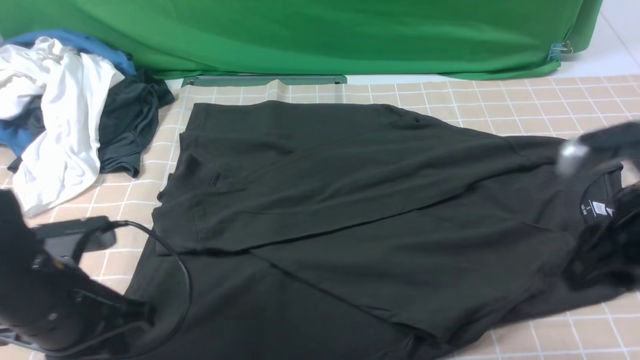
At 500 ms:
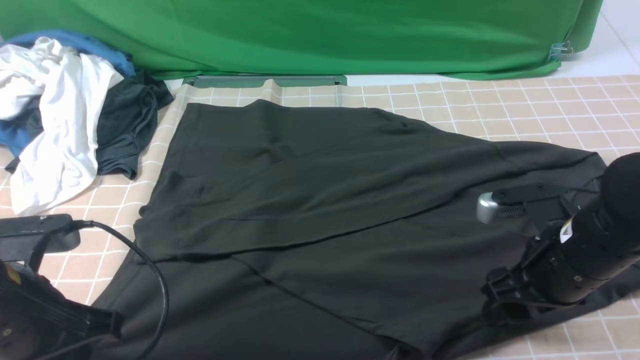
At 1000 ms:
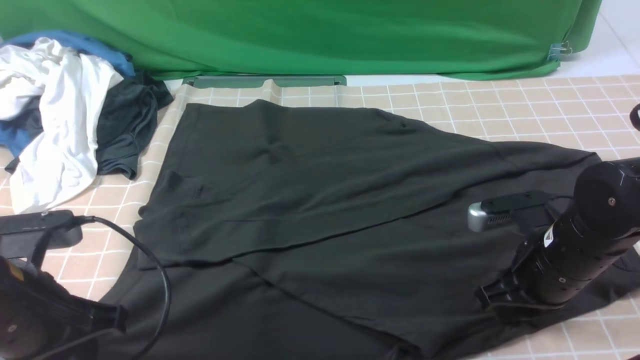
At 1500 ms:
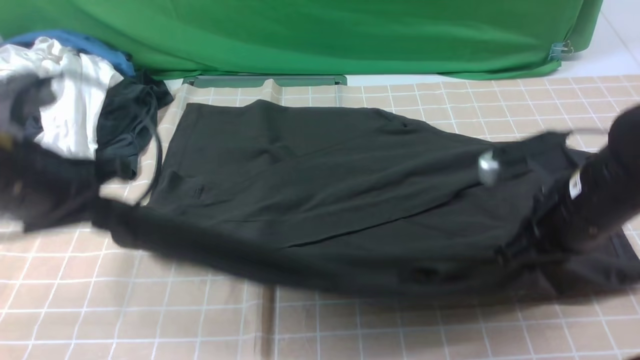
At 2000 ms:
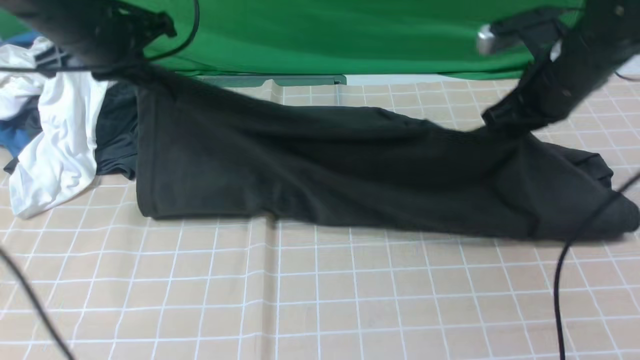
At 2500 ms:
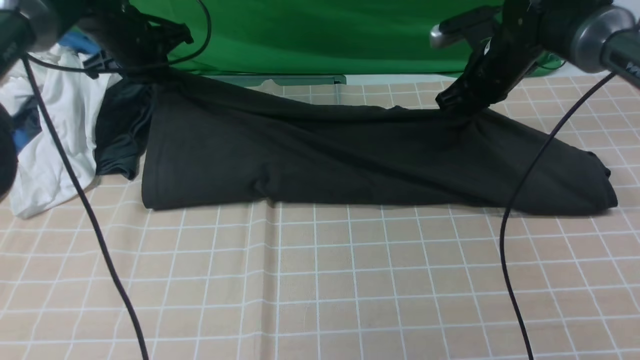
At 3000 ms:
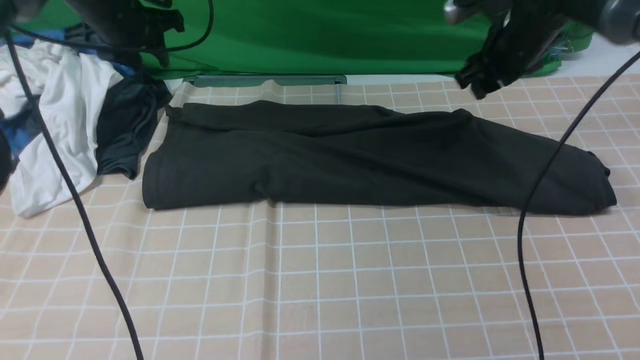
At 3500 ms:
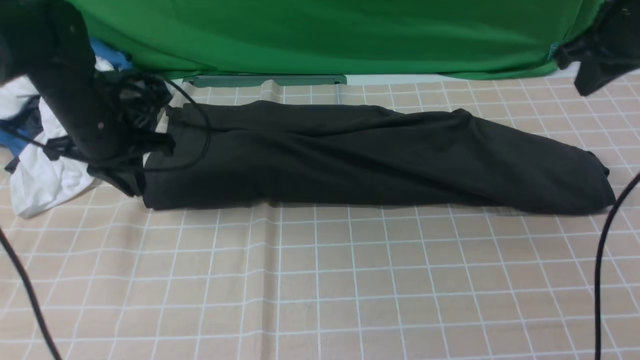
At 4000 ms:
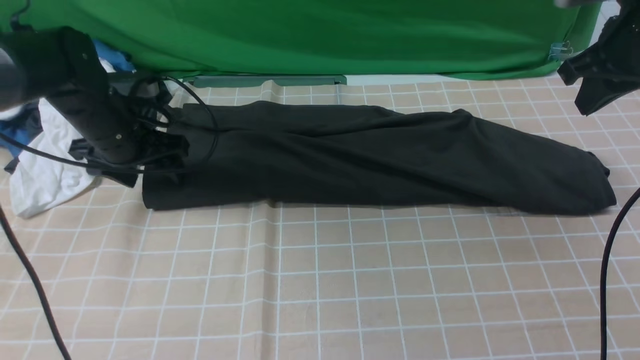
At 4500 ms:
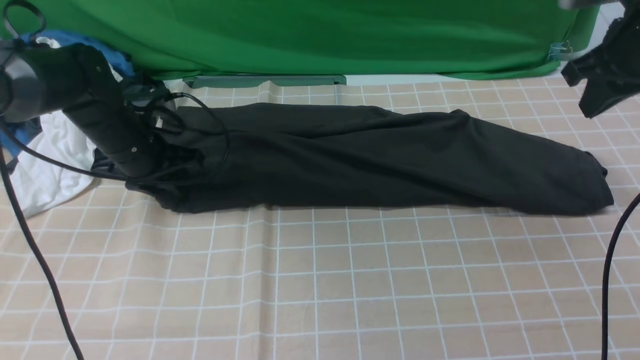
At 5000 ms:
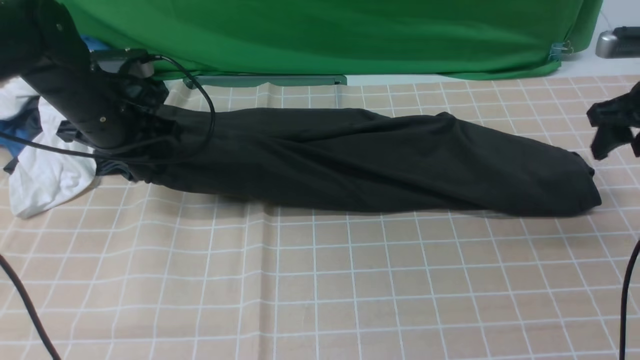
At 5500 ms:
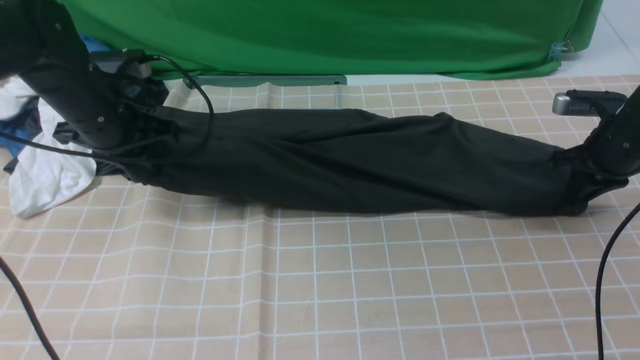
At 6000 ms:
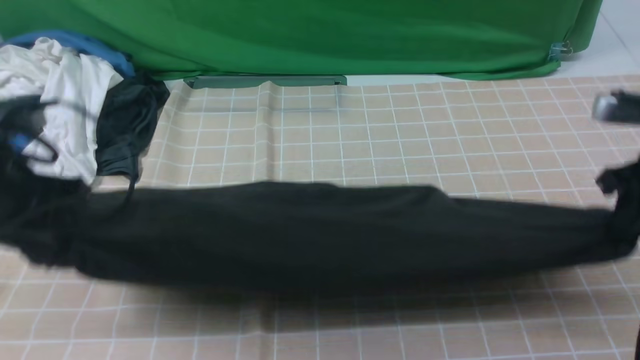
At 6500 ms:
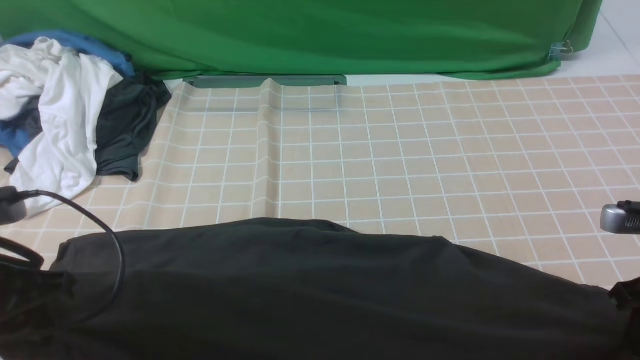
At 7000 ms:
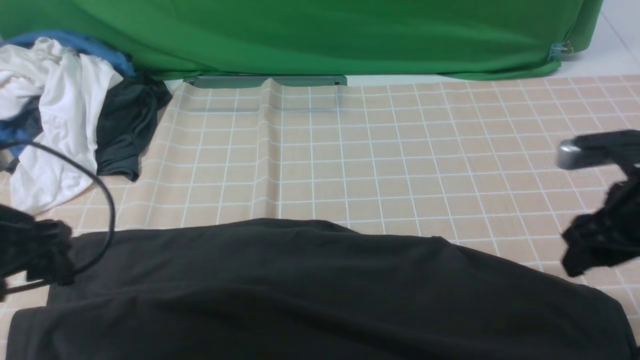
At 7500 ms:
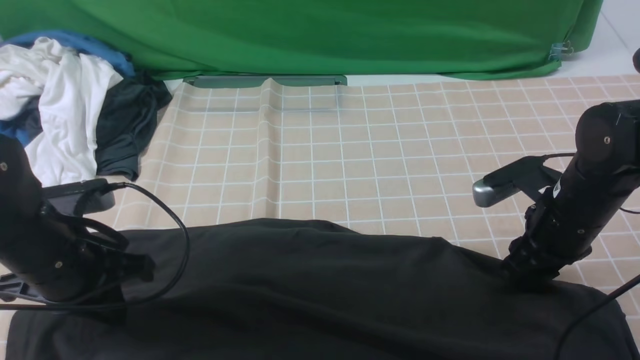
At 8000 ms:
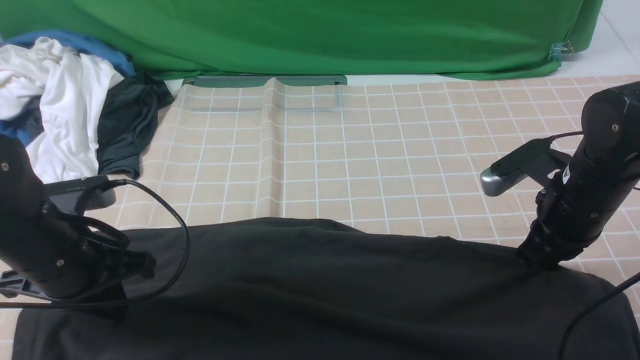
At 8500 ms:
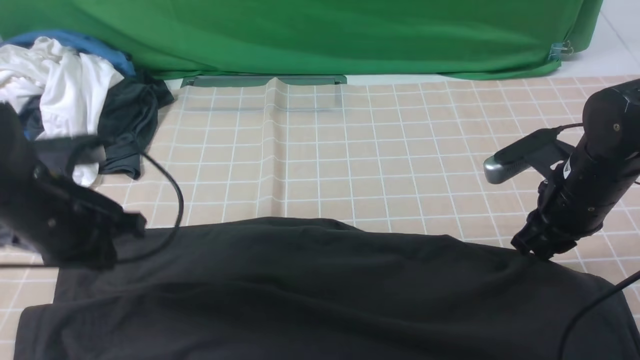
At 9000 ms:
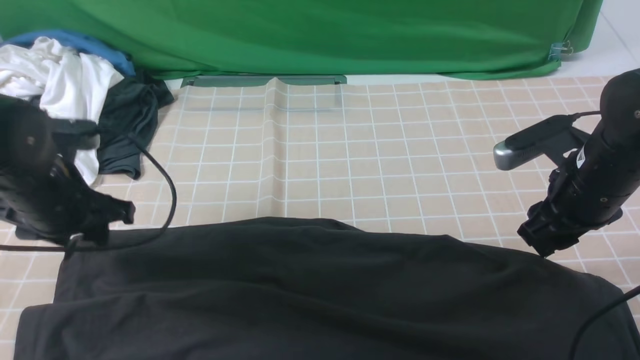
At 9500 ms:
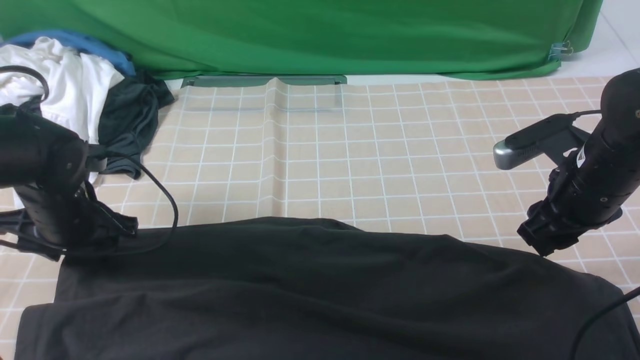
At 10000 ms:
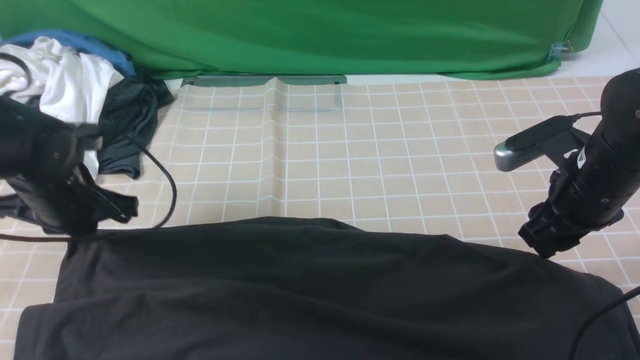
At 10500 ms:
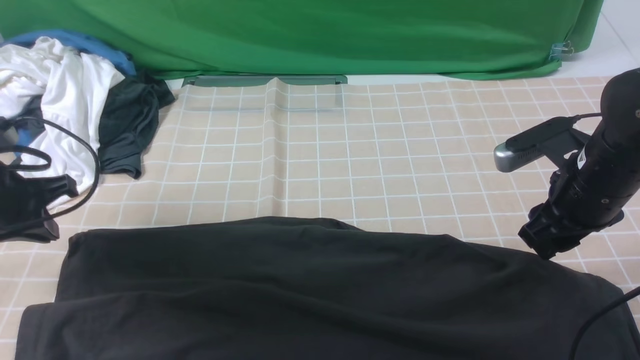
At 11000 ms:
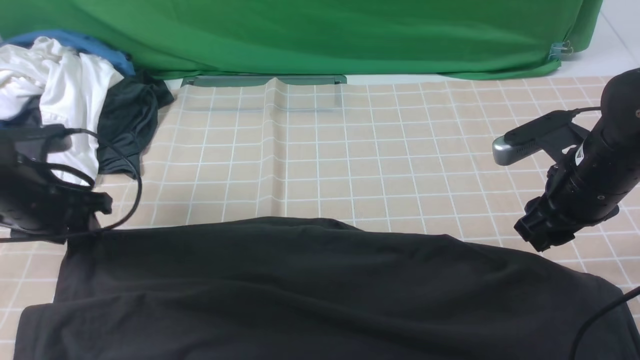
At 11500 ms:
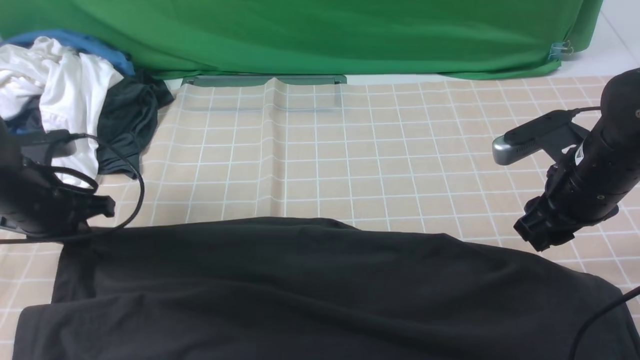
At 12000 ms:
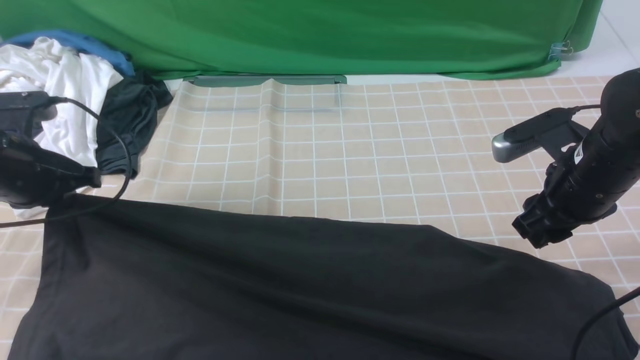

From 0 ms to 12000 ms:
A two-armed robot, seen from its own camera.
Step, from 0 ms to 1000 ms: use both arms simultaneously to clamp the lower edge of the clothing fabric.
Step, from 1500 ms to 3000 ms: use both arms to drag the lower edge of the fabric forward and fold it over the upper edge.
From 0 ms to 2000 ms: The right gripper moves forward, approximately 20 cm, and closes up; the left gripper heads forward and upward, covering some 25 cm.
From 2000 ms to 4000 ms: The left gripper is displaced downward by roughly 15 cm, and opens. The right gripper heads to the right and upward, covering about 10 cm, and opens and closes again.
From 4000 ms to 6000 ms: The right gripper is displaced backward and downward by some 15 cm, and opens, then closes once more, while the left gripper is displaced backward and upward by some 15 cm, and closes its fingers.
From 6000 ms to 8000 ms: The left gripper moves downward, about 5 cm, and opens, then closes again; the right gripper goes roughly 10 cm to the left and downward, and opens, then closes again.
From 8000 ms to 10000 ms: The left gripper is displaced forward by some 10 cm, and opens, then closes again; the right gripper opens its fingers.
From 10000 ms to 12000 ms: The left gripper shifts by roughly 5 cm, and opens, then closes once more.

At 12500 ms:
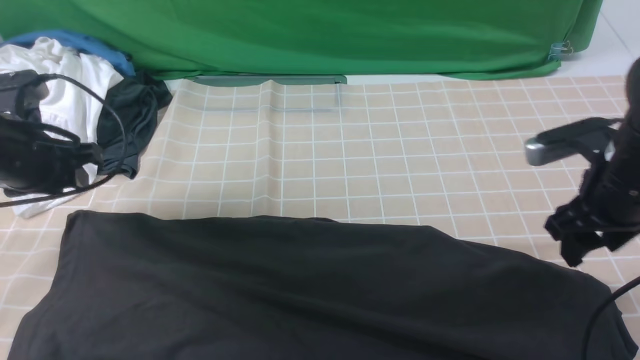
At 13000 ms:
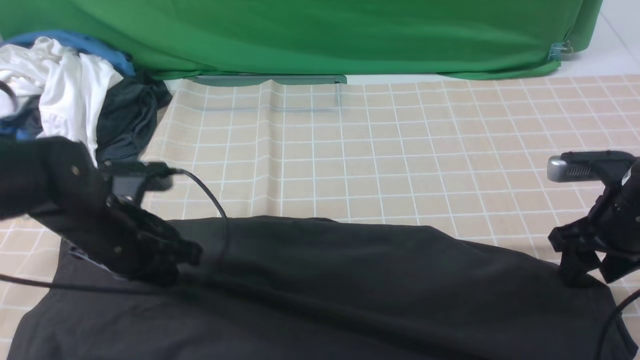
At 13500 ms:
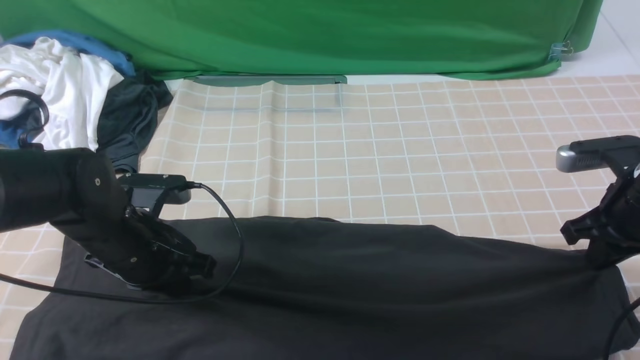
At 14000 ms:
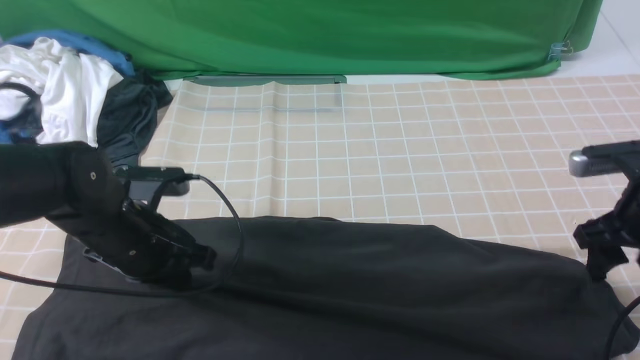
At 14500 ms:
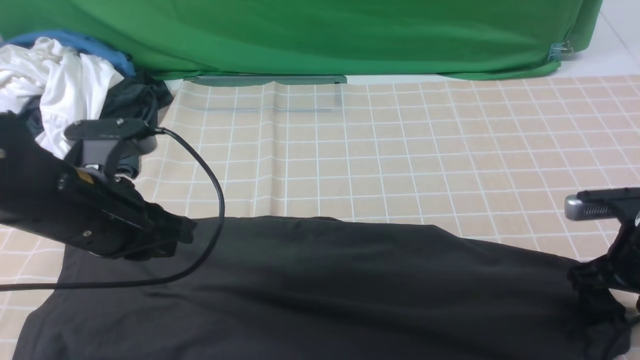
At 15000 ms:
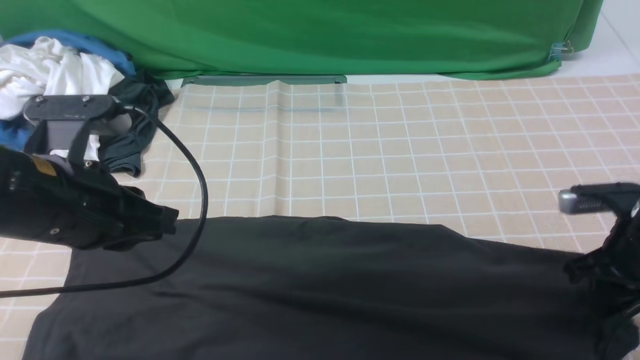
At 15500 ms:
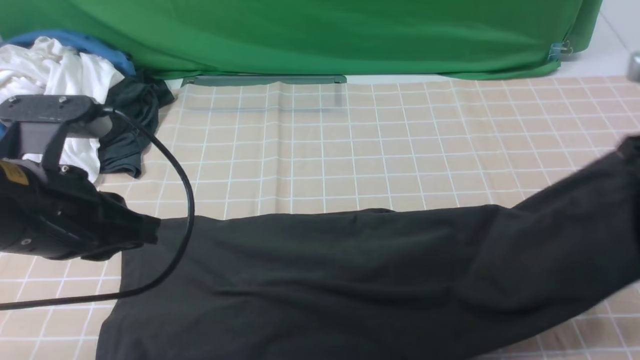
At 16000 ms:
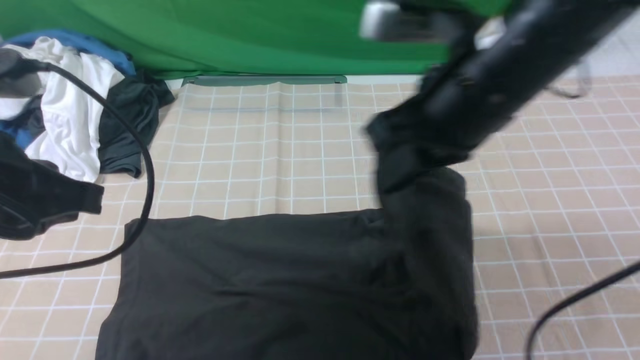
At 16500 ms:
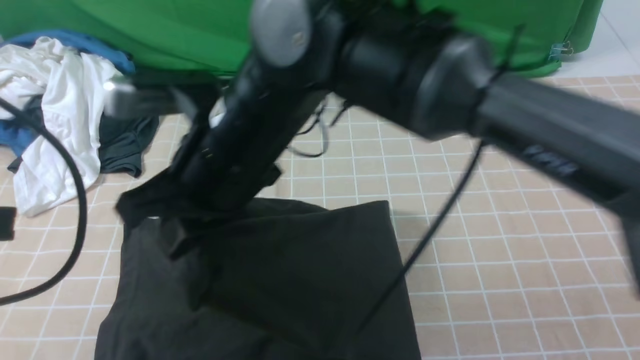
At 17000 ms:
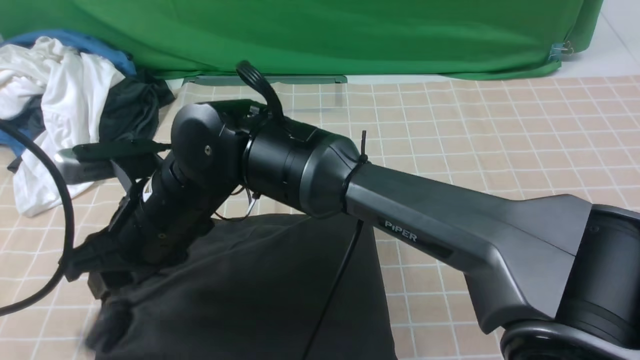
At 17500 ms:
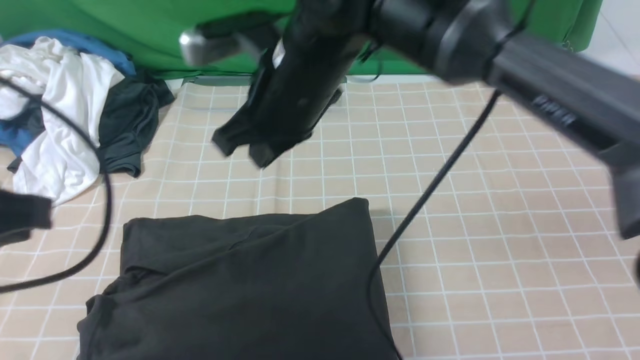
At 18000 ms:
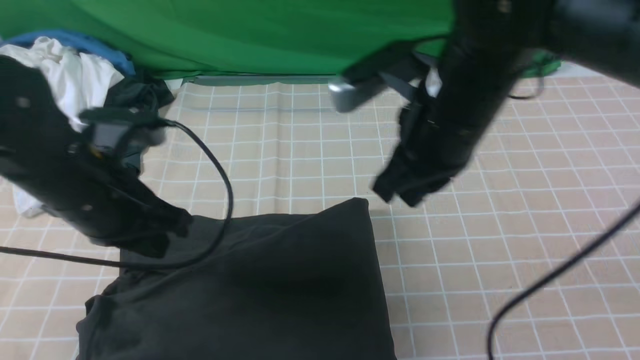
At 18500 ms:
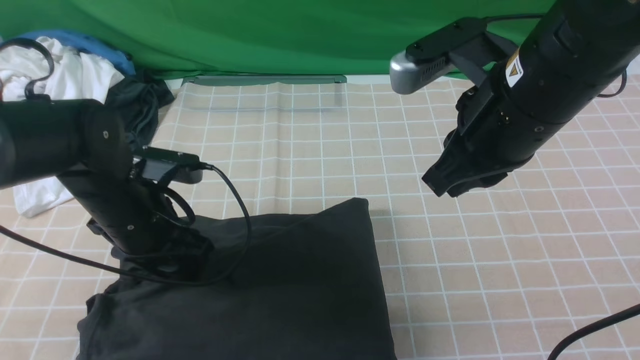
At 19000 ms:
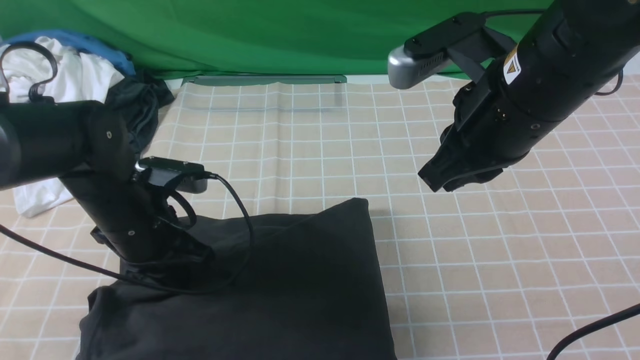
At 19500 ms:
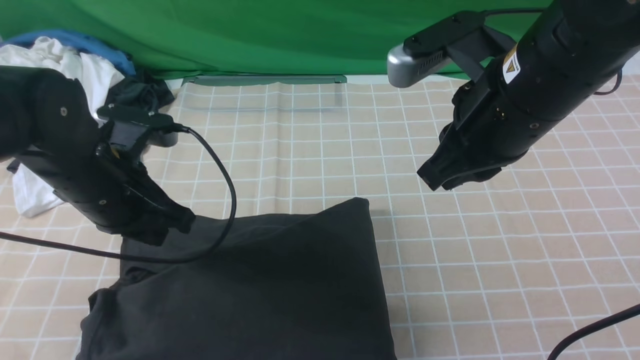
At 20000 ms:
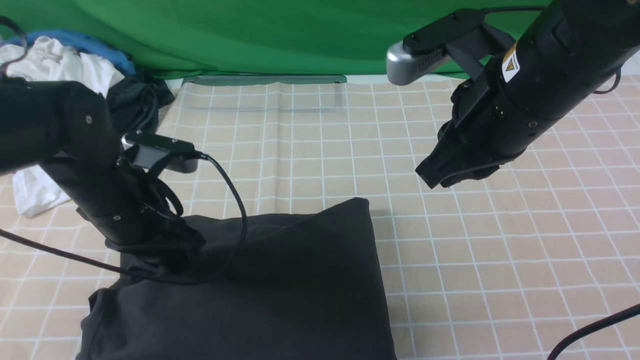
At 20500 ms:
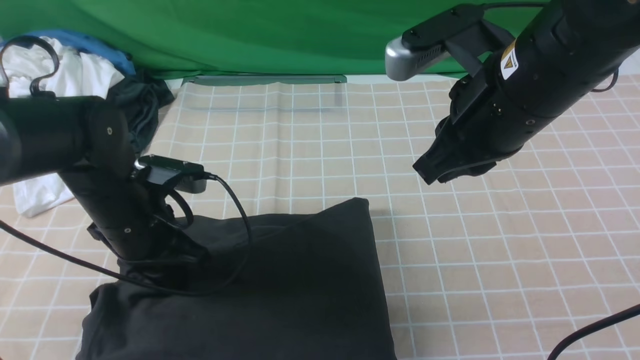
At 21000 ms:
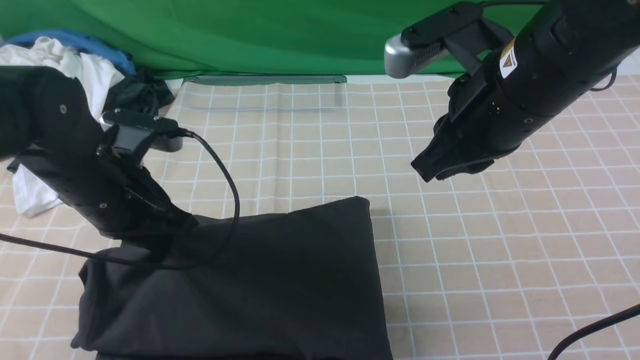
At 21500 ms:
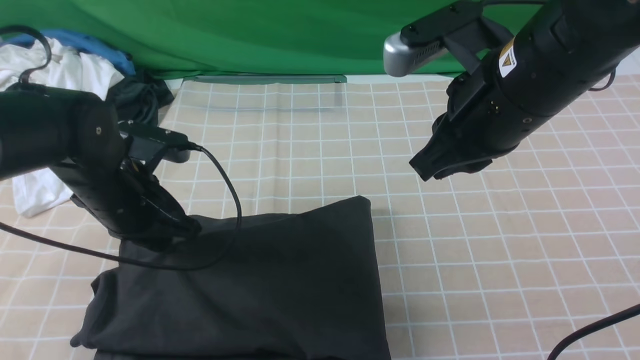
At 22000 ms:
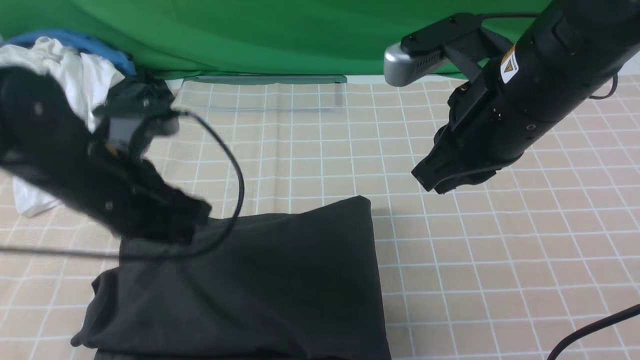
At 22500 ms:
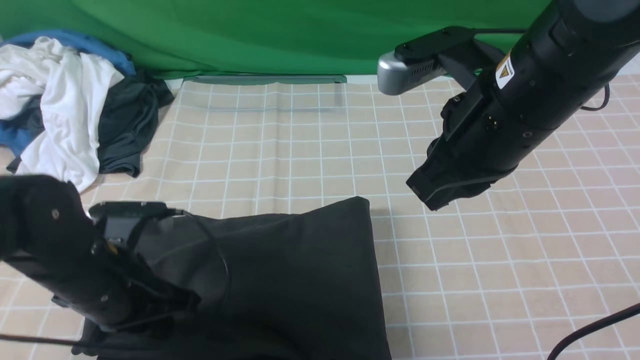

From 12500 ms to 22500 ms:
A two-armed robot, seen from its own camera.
Step, from 12500 ms to 15000 ms: use the right arm to clamp the right edge of the fabric.
Step, from 15500 ms to 17000 ms: use the right arm to drag the right edge of the fabric to the left and folds it over the left edge.
From 12500 ms to 14500 ms: The left gripper moves to the right and backward, approximately 15 cm, and closes; the right gripper travels downward by approximately 5 cm, and closes and opens again.
From 14500 ms to 16500 ms: The right gripper travels to the left by about 40 cm, and closes; the left gripper moves upward and backward, about 15 cm.
From 16500 ms to 18500 ms: The right gripper is displaced to the right by about 20 cm, and opens and closes again. The left gripper goes some 25 cm downward and forward, and opens up.
From 18500 ms to 20500 ms: The grippers move only a little.
From 20500 ms to 22500 ms: The left gripper travels backward by roughly 5 cm.
